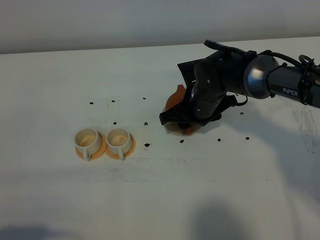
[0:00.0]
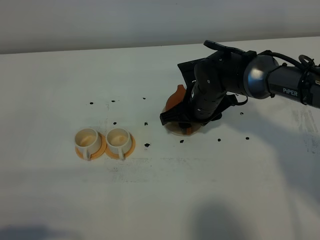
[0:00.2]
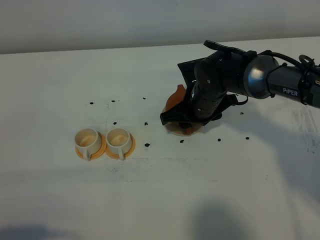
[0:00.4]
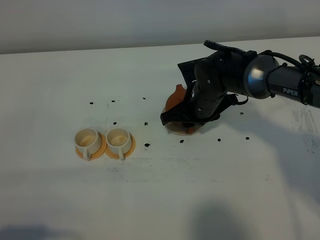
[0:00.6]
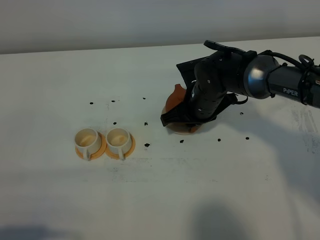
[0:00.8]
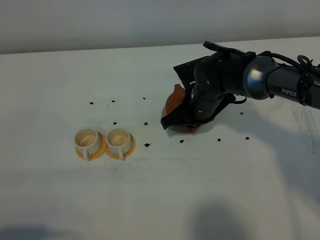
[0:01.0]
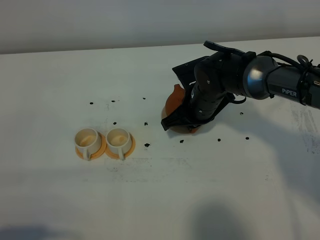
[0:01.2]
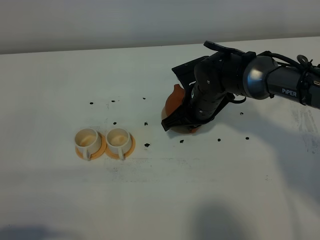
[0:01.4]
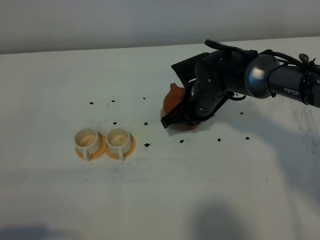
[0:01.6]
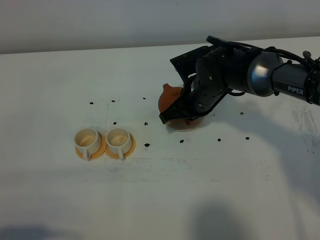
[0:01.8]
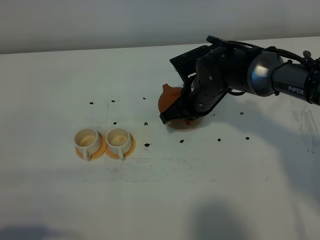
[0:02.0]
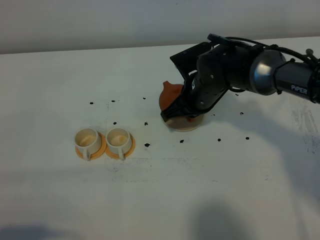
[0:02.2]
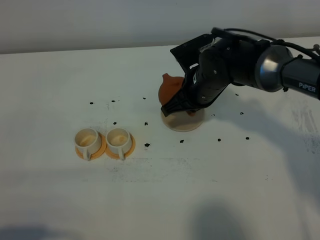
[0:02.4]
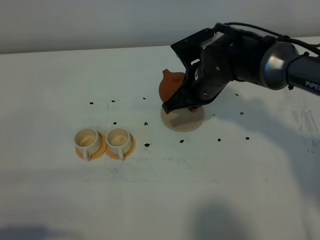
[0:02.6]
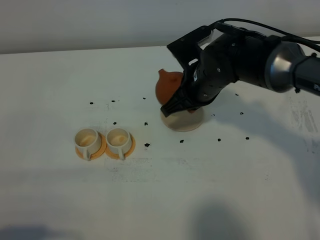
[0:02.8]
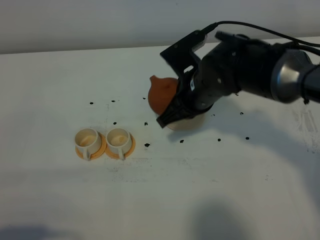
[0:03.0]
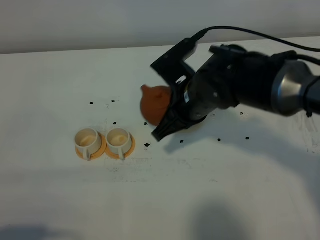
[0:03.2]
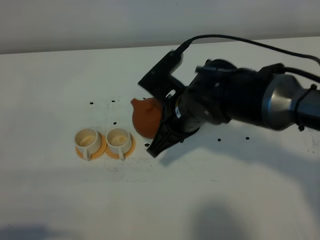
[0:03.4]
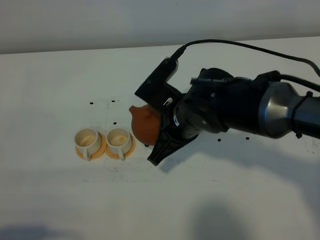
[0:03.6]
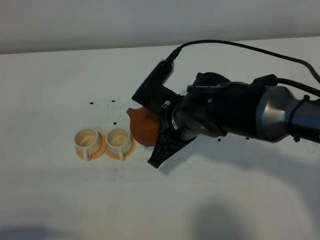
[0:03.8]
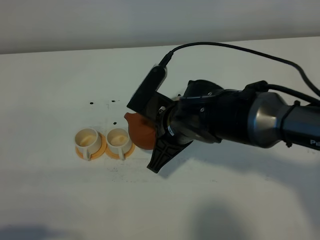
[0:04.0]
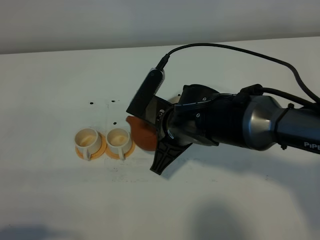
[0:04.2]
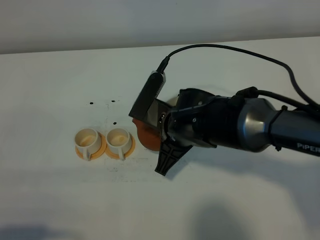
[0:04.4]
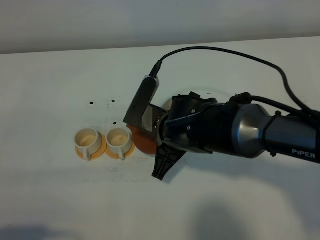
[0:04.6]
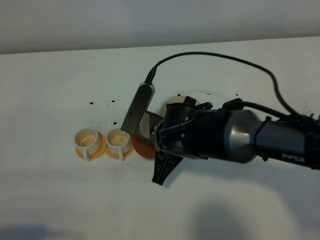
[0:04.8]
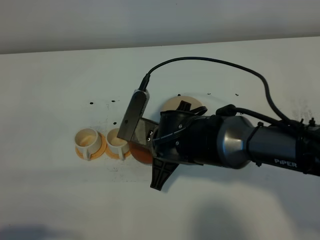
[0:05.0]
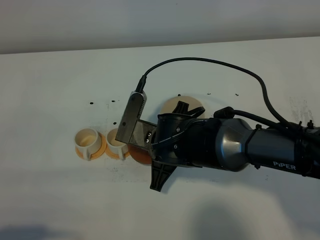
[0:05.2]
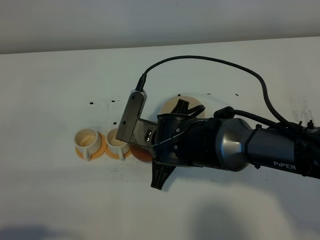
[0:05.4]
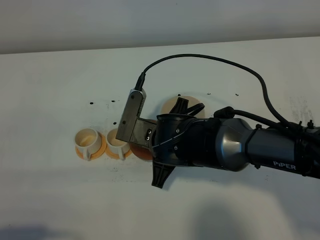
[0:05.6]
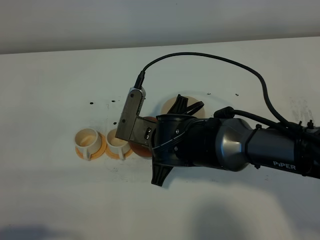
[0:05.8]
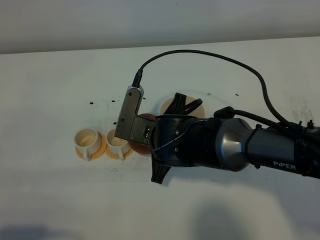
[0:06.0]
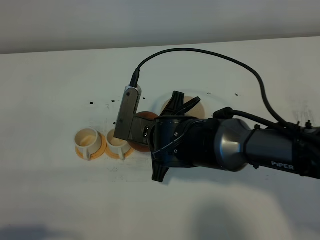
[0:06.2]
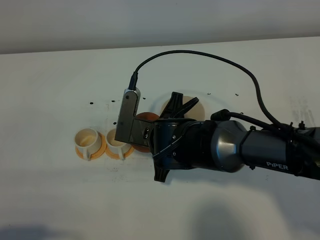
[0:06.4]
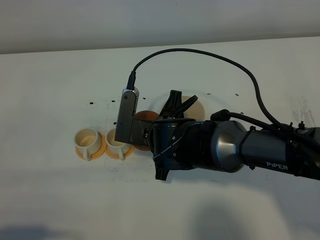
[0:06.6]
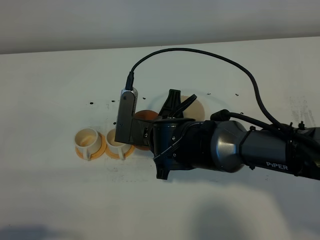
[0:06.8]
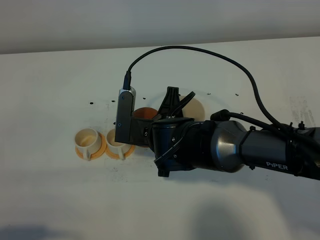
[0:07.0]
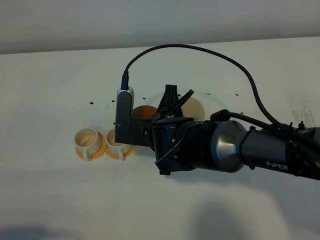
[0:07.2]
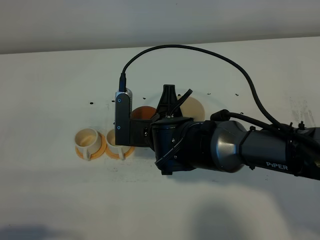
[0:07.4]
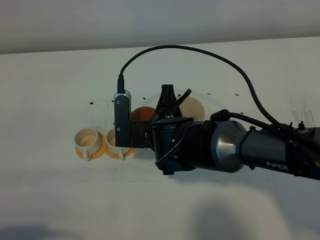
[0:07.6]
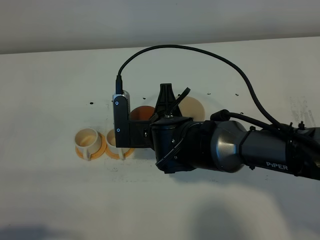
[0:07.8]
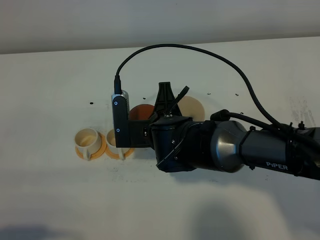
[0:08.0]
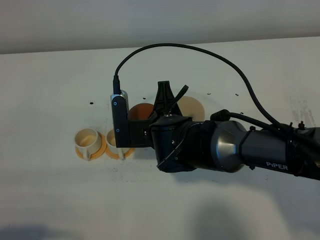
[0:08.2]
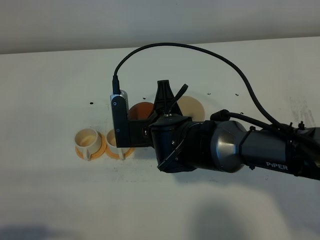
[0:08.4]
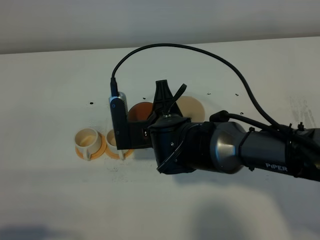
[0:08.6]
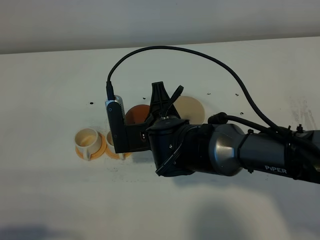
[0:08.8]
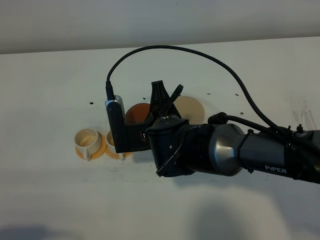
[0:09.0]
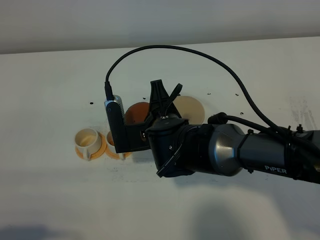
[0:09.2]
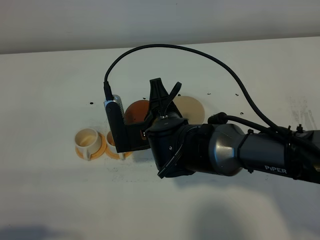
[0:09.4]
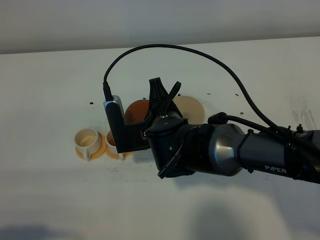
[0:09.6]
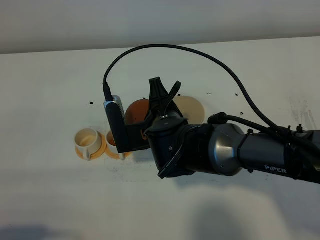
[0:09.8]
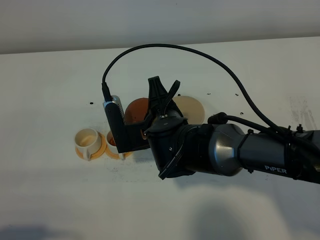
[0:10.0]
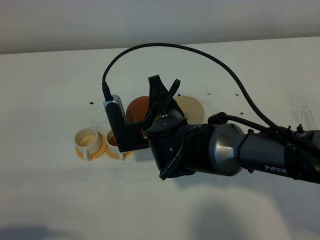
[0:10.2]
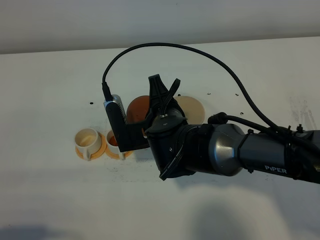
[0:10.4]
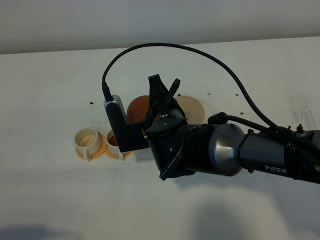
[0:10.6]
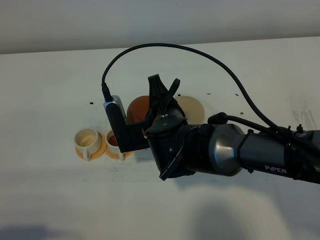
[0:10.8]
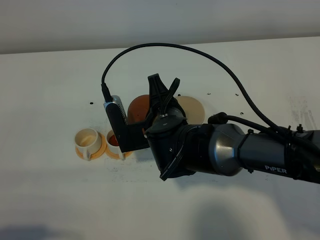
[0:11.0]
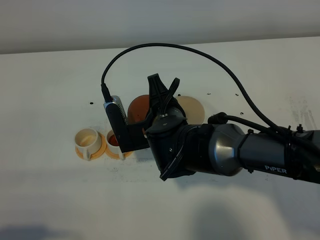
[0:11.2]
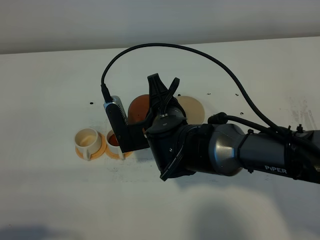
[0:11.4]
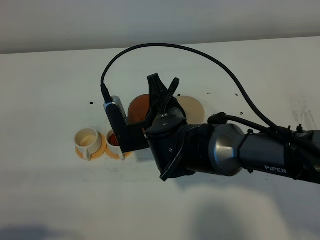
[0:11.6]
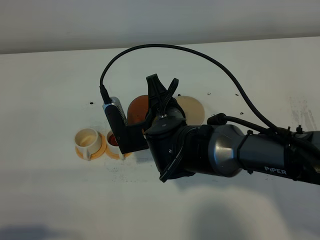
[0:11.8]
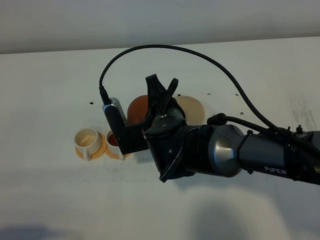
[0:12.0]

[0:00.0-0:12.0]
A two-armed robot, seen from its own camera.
Task of the whole recording: grasp the brown teapot and pour the tea into the two white teacups one by one, put the brown teapot back in its original place.
Step, 0:00.0 to 0:02.4: Pick up the teapot with the right gripper.
0:00.0 to 0:01.6: The right gripper closes up.
0:01.6 to 0:03.0: The right gripper travels upward by about 5 cm.
0:03.0 to 0:04.4: The right gripper ends up approximately 5 cm from where it was.
0:04.4 to 0:06.0: The grippers stay close to where they were, moving slightly.
0:06.0 to 0:07.6: The grippers move only a little.
0:07.6 to 0:10.4: The grippers stay close to where they were, moving slightly.
0:10.4 to 0:12.0: Neither gripper changes place.

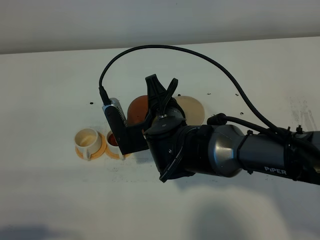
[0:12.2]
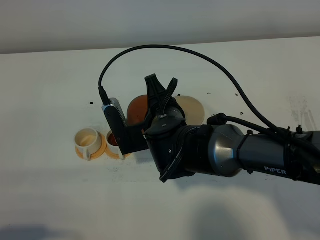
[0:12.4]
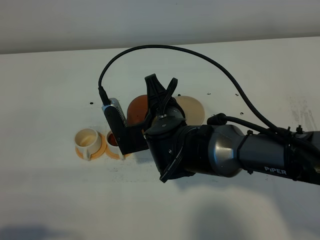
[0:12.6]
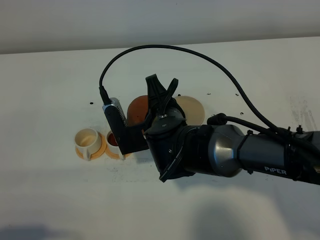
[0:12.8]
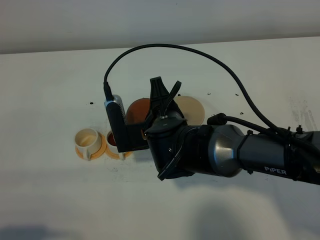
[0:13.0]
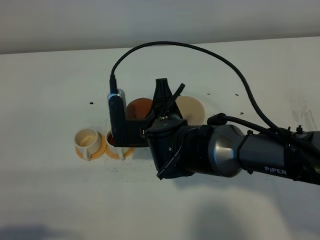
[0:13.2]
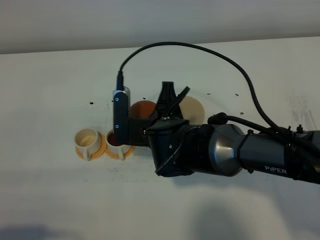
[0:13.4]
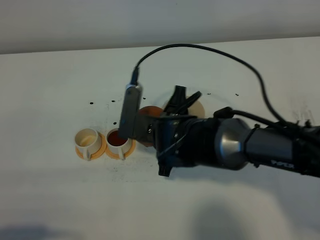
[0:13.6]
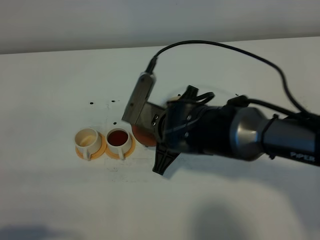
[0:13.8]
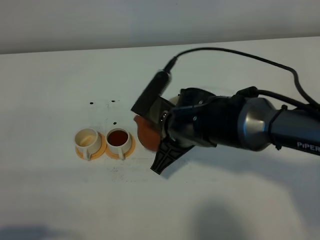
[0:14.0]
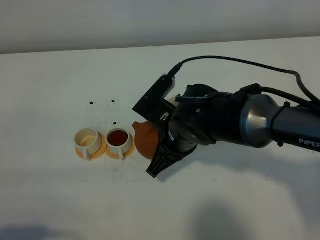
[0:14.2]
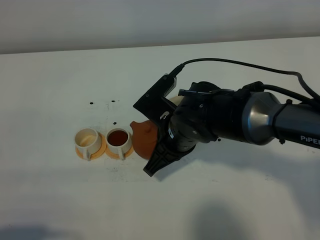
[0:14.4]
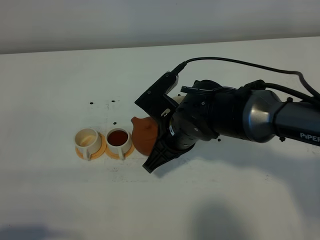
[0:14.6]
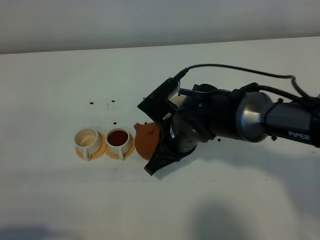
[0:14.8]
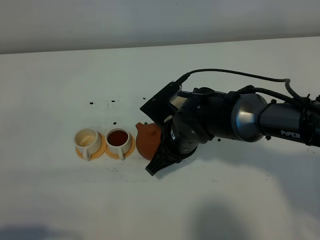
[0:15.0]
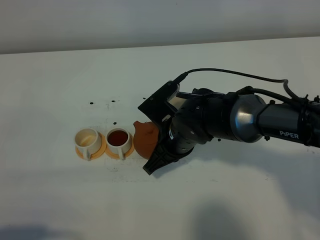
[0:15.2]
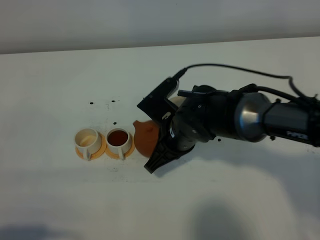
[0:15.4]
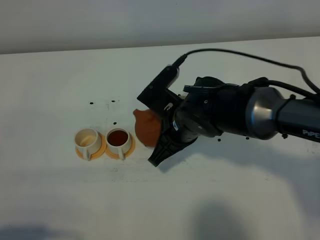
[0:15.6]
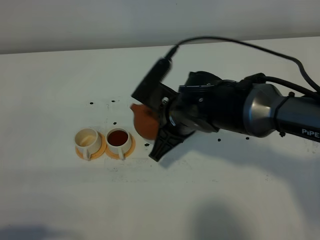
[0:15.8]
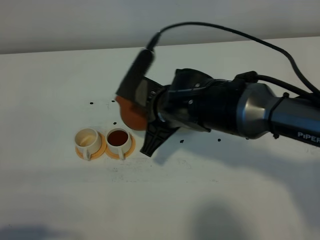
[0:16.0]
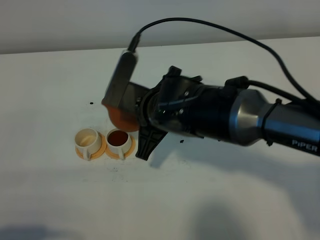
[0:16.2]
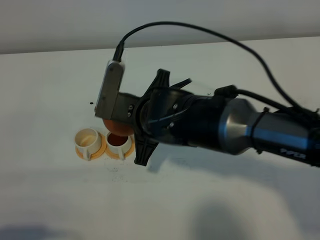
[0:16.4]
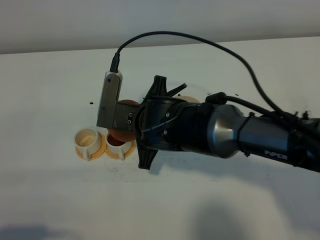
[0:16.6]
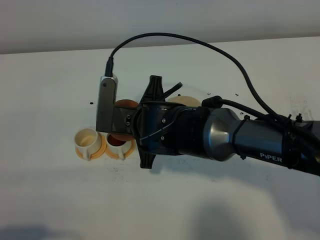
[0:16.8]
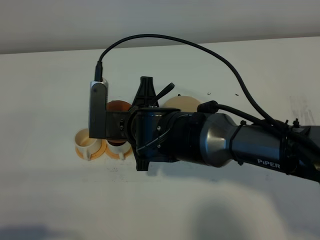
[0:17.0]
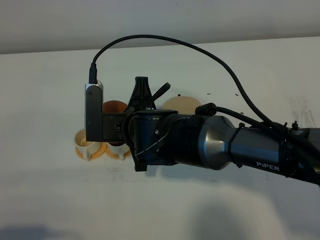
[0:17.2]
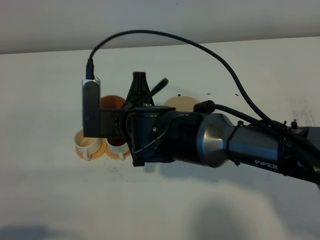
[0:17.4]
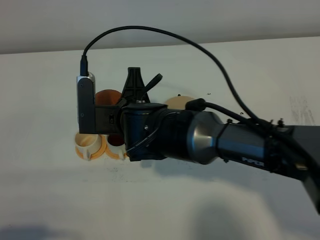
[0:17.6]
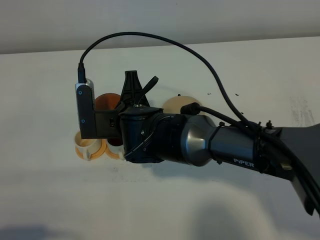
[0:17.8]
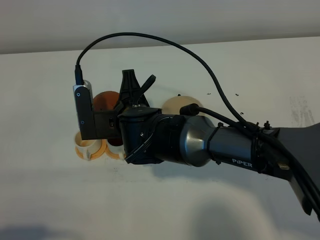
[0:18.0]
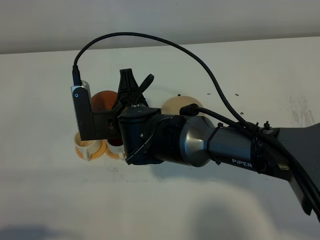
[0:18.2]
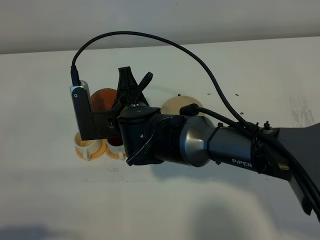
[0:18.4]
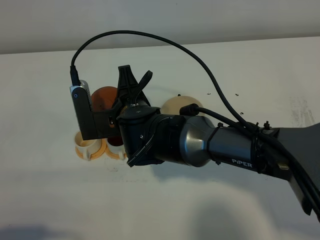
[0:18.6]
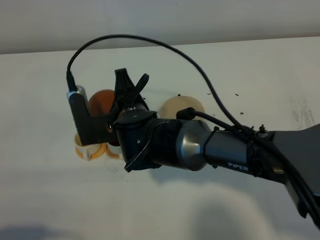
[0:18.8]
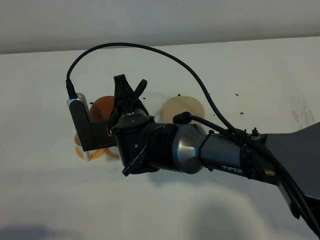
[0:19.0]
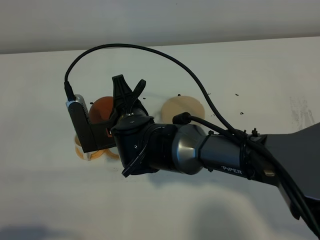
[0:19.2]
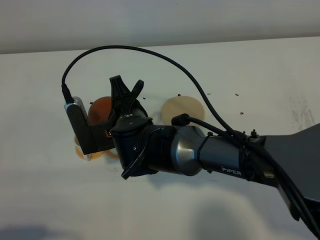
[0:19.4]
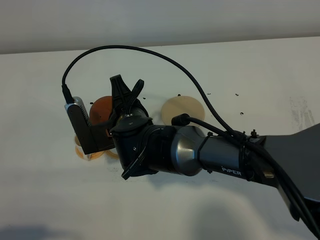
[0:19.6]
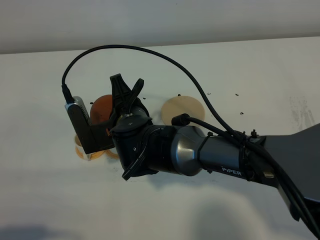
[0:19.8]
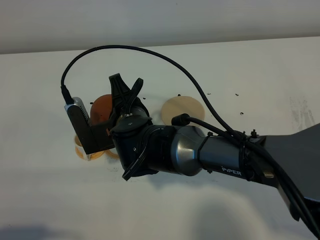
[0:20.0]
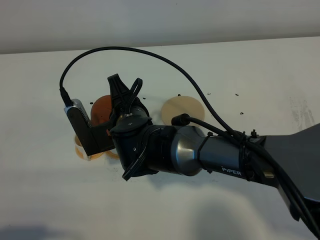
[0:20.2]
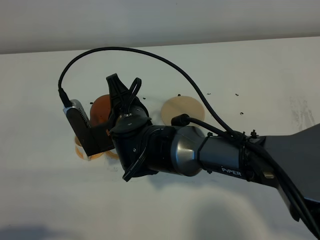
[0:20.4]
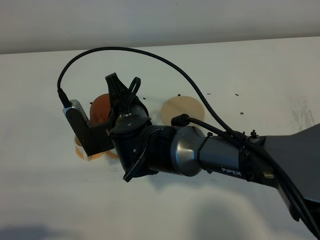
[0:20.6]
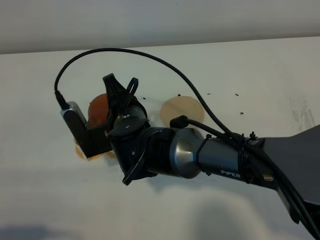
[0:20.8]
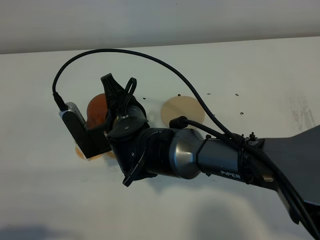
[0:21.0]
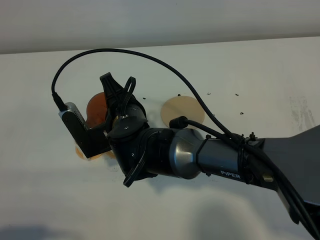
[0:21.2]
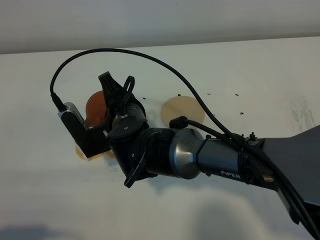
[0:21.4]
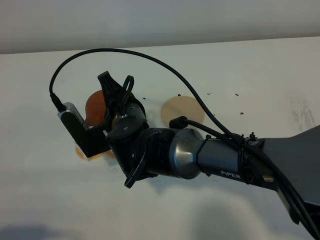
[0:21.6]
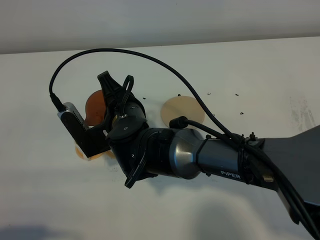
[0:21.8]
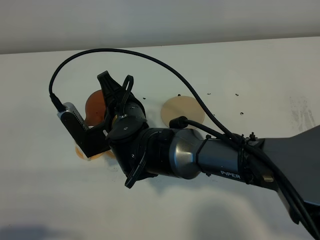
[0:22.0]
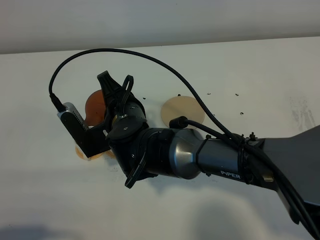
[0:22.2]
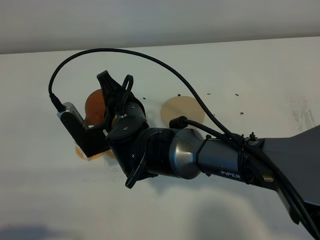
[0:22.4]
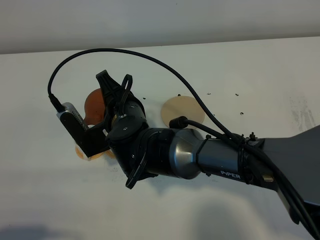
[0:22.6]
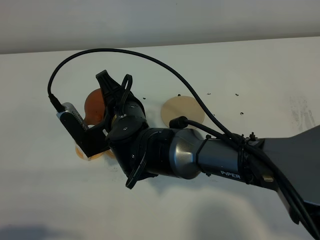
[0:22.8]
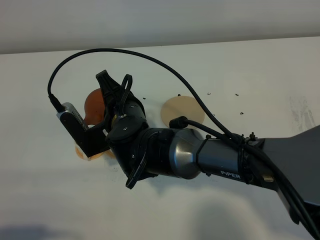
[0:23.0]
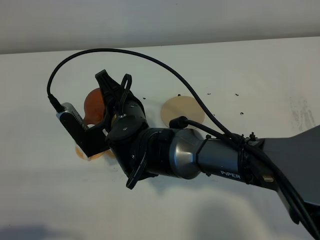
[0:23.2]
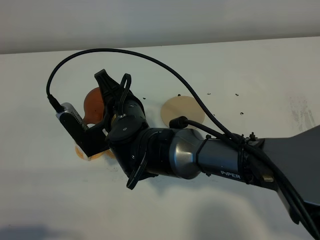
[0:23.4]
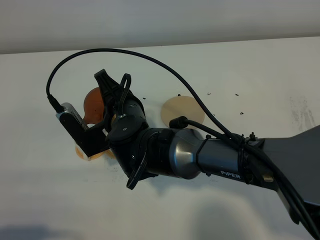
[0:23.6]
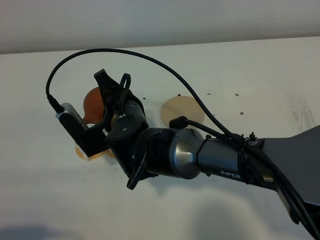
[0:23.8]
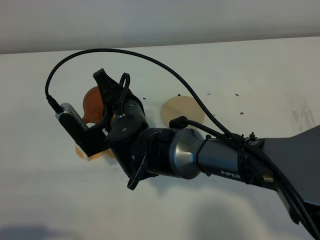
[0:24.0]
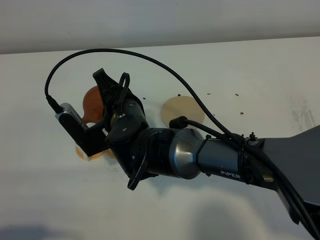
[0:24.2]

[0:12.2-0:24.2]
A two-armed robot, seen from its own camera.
Task of the whole recording: grasp the brown teapot and pour the tea into the two white teacups one by one, put the brown teapot back in its original place.
0:15.2 to 0:16.6: The right gripper ends up some 5 cm from where it was.
0:18.2 to 0:19.8: The grippers stay close to where they were, moving slightly.
0:19.8 to 0:21.2: The grippers stay close to where they were, moving slightly.
0:21.2 to 0:22.6: Both grippers stay put.
0:22.6 to 0:24.2: Neither gripper changes place.
